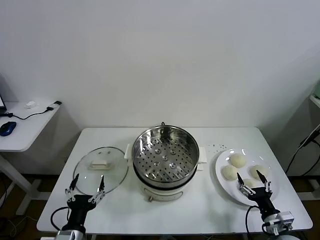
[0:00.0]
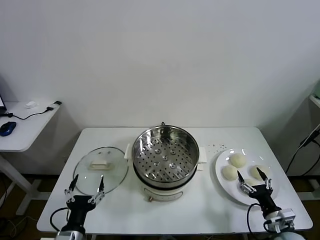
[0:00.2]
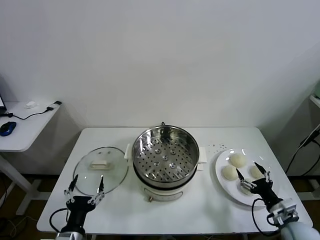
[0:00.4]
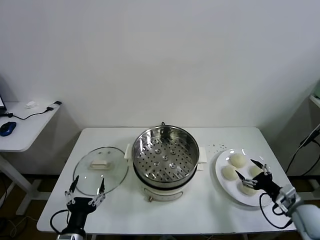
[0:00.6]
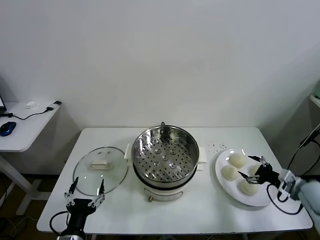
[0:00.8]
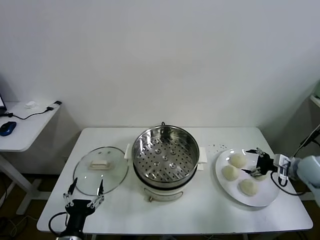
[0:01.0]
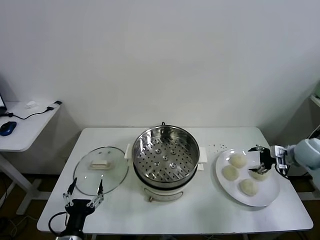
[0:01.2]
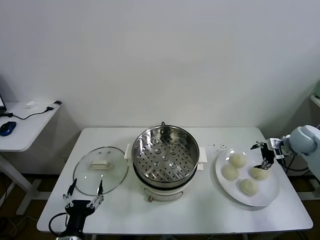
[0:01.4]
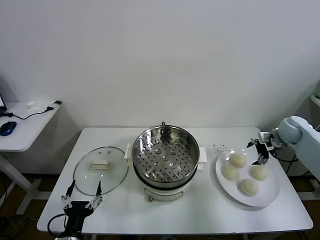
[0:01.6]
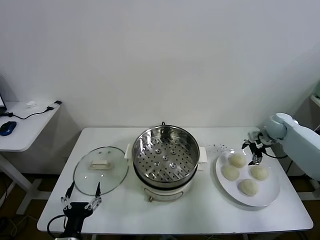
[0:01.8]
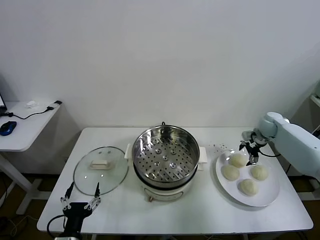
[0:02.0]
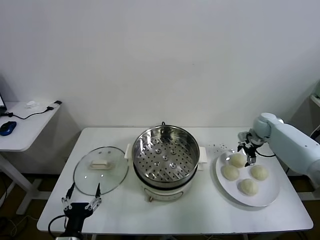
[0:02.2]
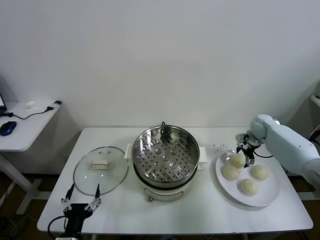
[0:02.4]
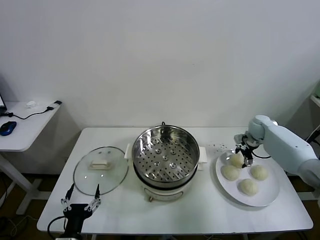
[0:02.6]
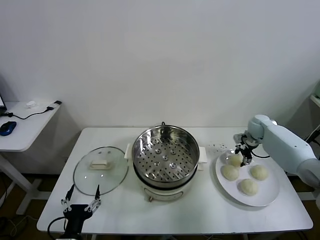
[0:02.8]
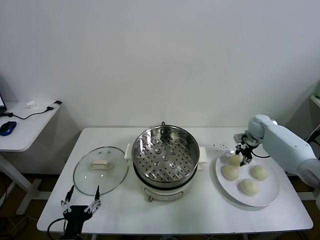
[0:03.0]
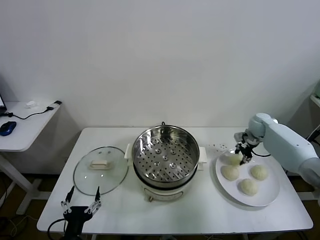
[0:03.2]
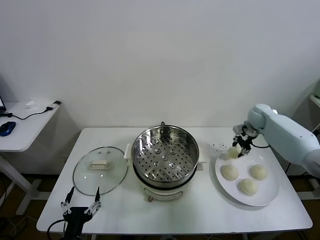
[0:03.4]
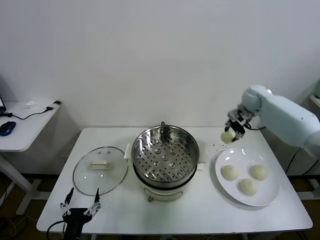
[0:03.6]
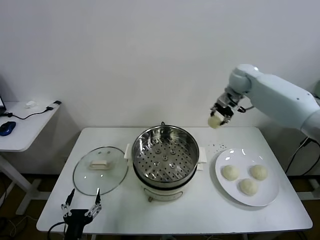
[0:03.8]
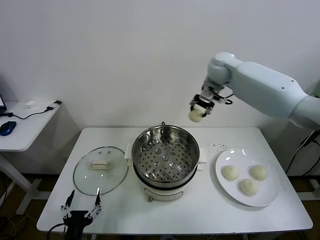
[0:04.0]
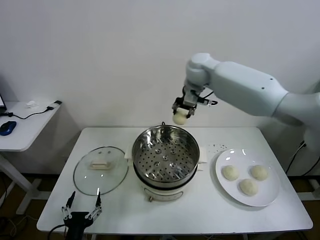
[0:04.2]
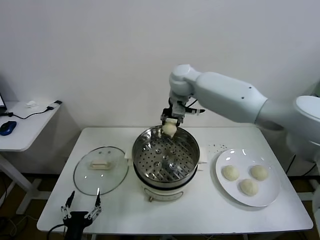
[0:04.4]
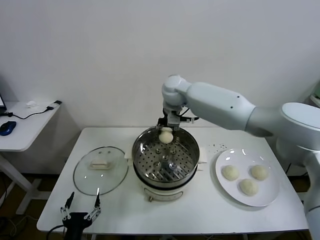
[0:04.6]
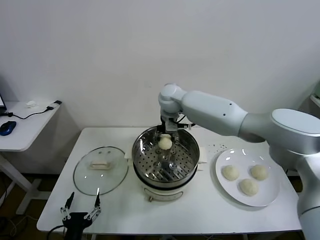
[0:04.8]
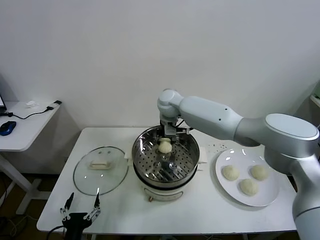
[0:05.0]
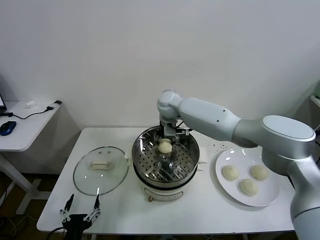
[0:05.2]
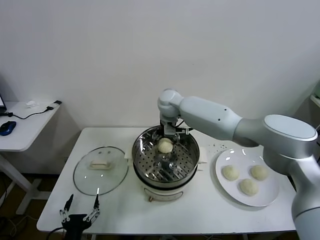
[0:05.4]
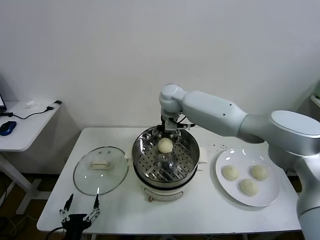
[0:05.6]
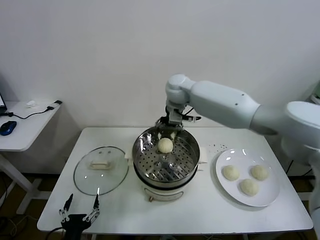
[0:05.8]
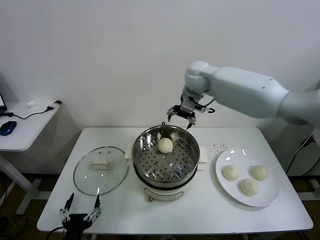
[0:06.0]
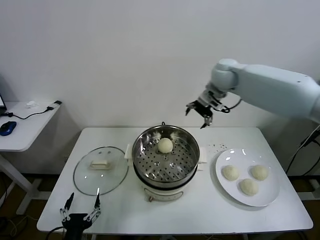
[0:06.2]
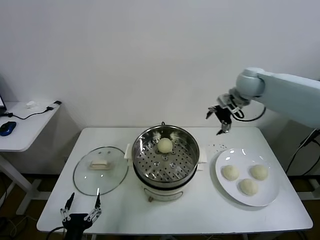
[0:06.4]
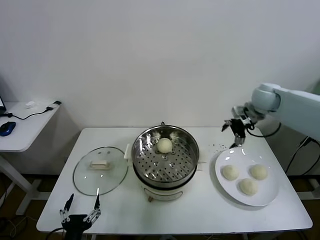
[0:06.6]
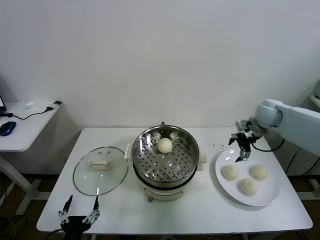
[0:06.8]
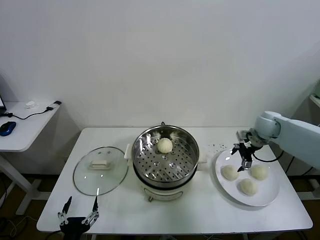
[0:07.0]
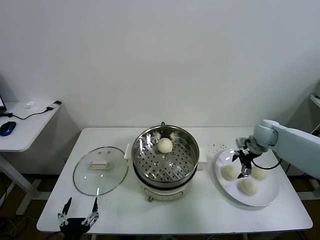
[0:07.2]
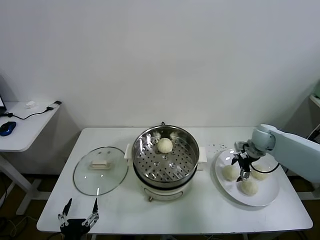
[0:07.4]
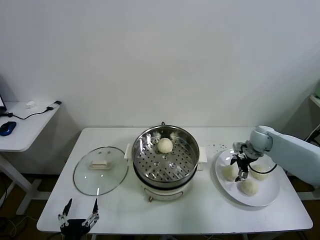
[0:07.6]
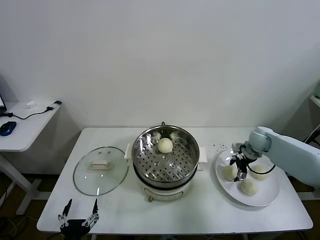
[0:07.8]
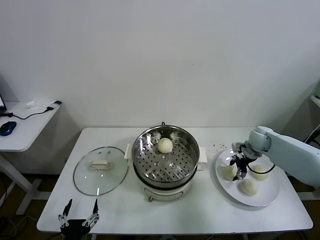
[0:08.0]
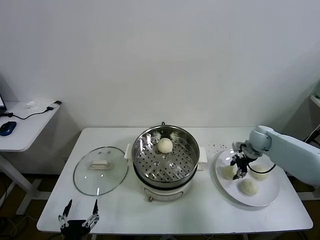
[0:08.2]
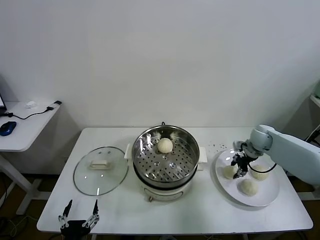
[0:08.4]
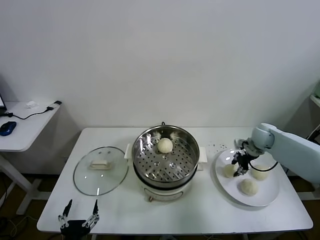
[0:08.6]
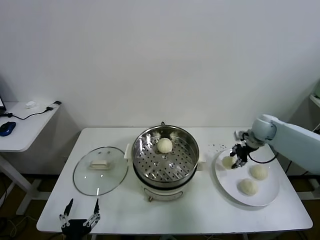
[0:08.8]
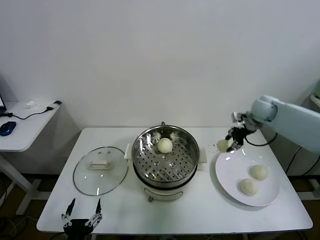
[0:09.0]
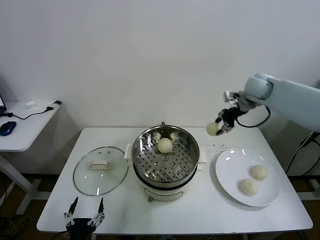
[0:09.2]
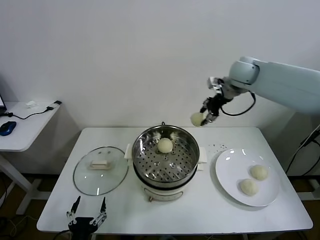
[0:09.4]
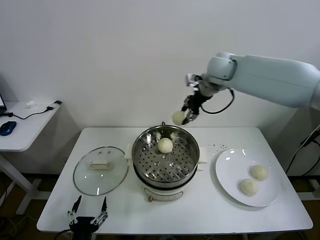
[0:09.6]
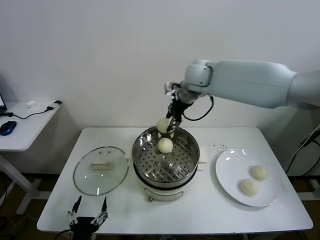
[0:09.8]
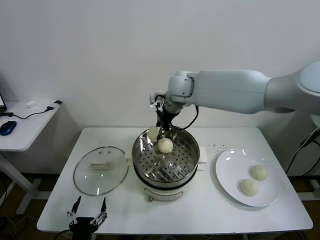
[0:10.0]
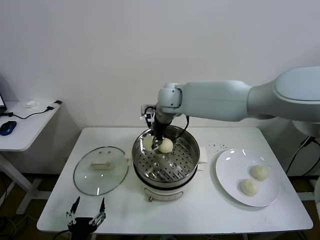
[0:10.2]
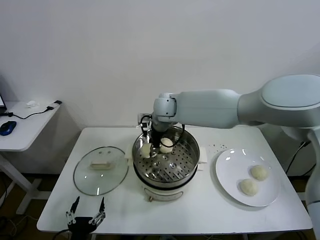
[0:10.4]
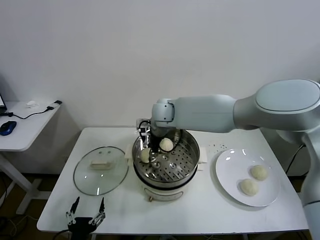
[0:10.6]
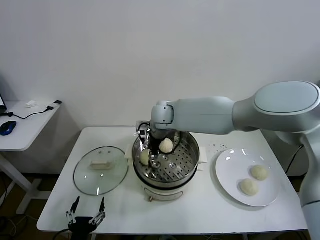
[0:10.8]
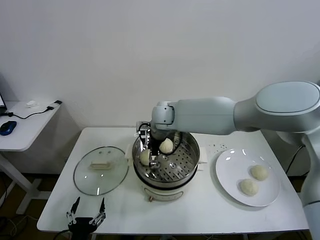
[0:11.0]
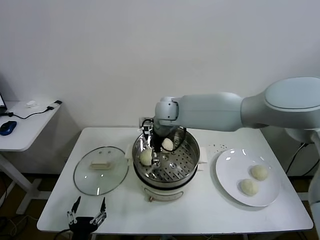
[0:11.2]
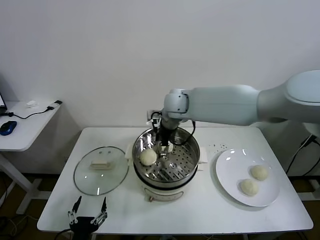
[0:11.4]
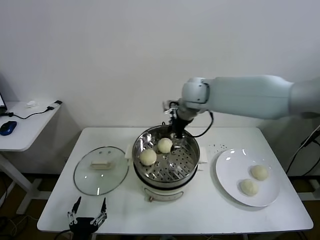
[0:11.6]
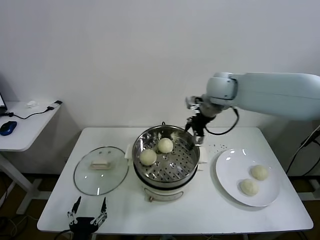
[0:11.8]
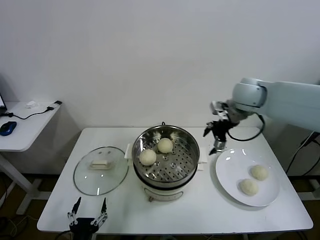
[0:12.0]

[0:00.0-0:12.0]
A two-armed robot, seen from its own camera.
Task of the whole recording: take steamed baozi put them in steamer.
Step, 0.0 to 2.8 s: Grasp the baozi in the plate with right gripper.
Step, 3.0 to 5.4 s: Place the baozi on the steamer with right gripper.
Step, 5.8 to 8.0 s: Grasp the baozi in the plate with right gripper.
Step, 8.2 to 11.0 s: Place the baozi on the steamer with right gripper.
1.6 to 3.0 s: The right gripper goes about 10 cm forward and to the left, and closes.
3.0 to 4.4 s: The right gripper shifts approximately 40 cm to the left and upward.
4.4 to 6.0 s: The right gripper heads to the right, covering approximately 10 cm, and opens up.
6.0 to 7.6 s: The right gripper travels downward and to the right by approximately 35 cm.
7.6 to 9.0 s: The right gripper travels upward by roughly 15 cm, and closes.
9.0 to 10.4 s: The right gripper travels to the left by about 35 cm.
10.4 to 12.0 s: The right gripper is displaced to the right by about 25 cm, and opens up.

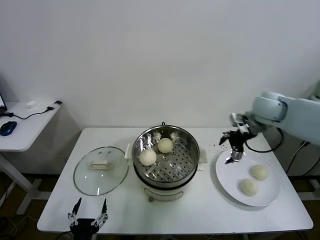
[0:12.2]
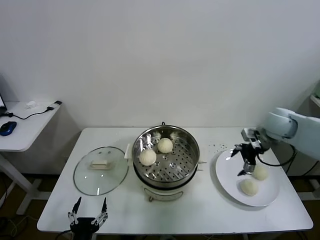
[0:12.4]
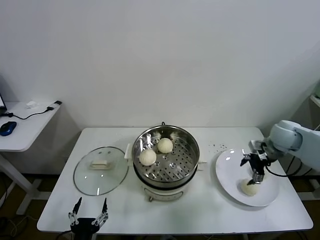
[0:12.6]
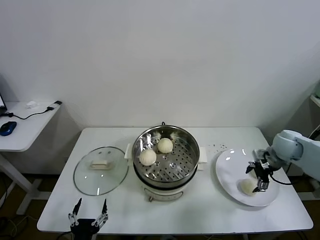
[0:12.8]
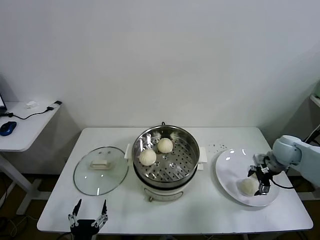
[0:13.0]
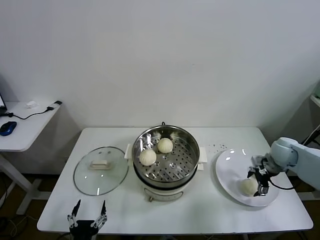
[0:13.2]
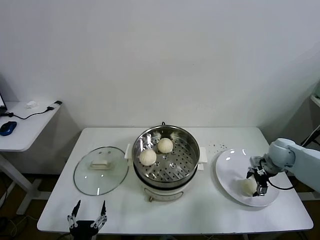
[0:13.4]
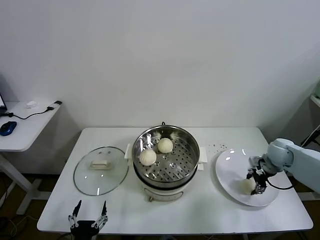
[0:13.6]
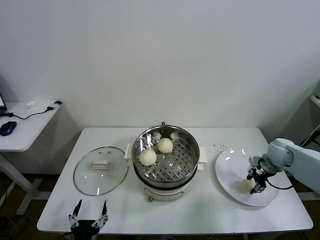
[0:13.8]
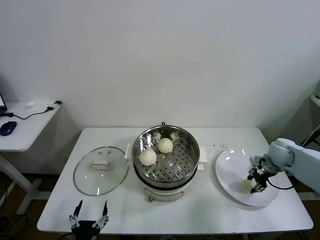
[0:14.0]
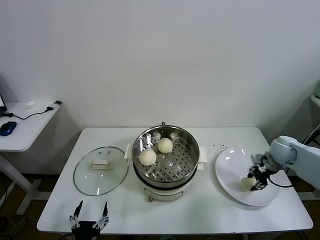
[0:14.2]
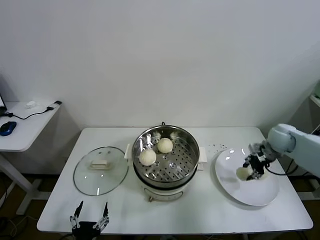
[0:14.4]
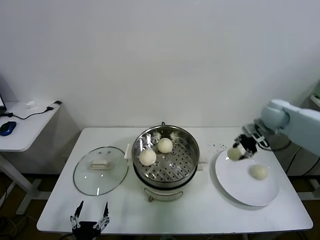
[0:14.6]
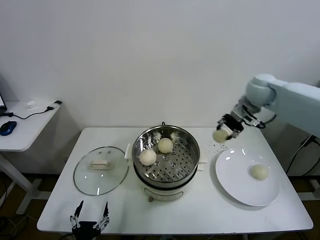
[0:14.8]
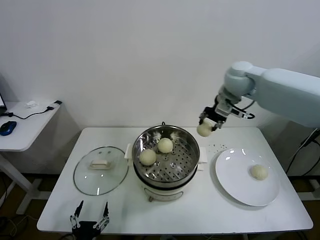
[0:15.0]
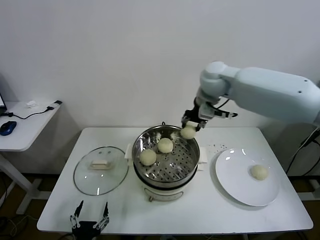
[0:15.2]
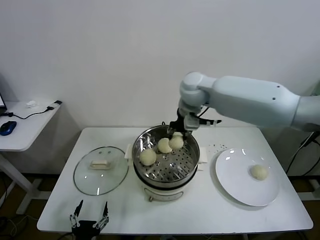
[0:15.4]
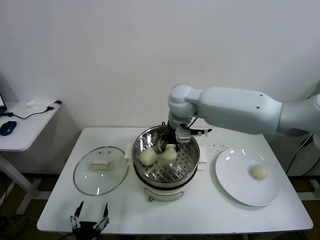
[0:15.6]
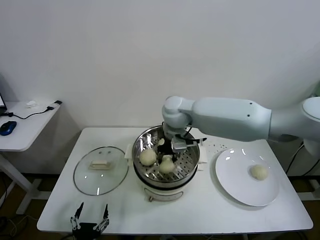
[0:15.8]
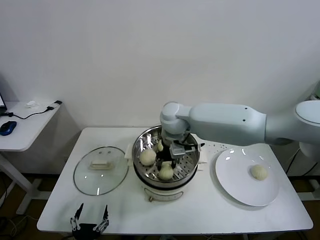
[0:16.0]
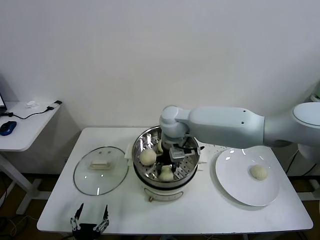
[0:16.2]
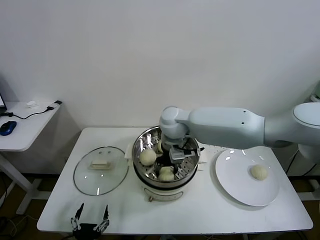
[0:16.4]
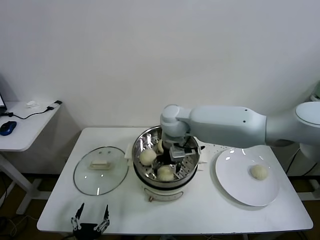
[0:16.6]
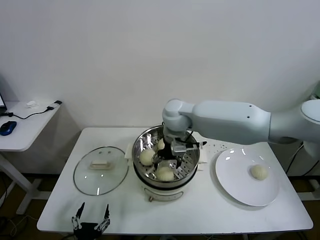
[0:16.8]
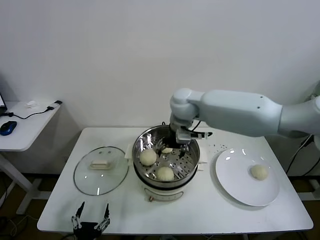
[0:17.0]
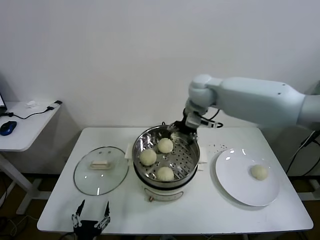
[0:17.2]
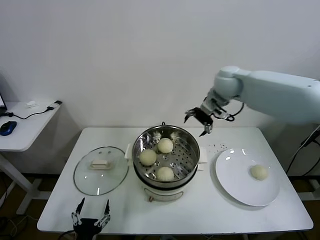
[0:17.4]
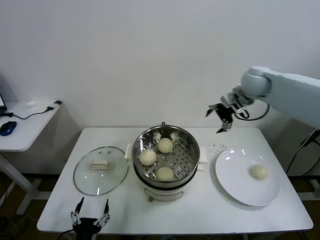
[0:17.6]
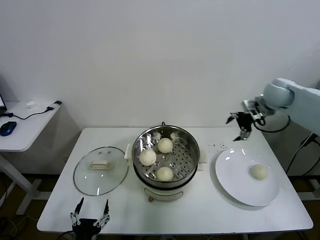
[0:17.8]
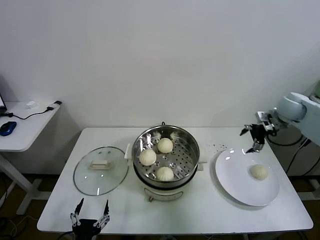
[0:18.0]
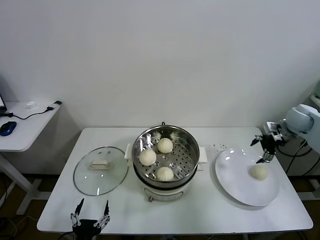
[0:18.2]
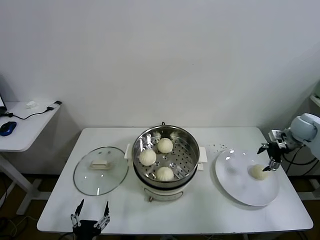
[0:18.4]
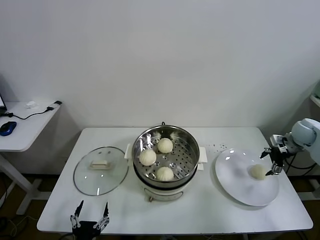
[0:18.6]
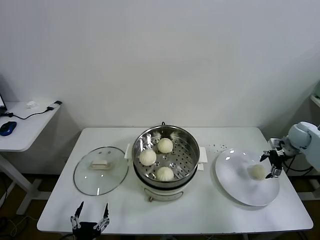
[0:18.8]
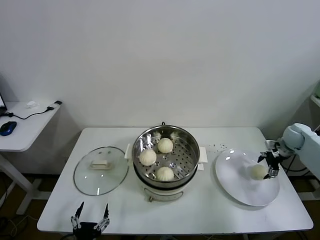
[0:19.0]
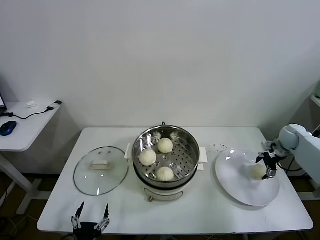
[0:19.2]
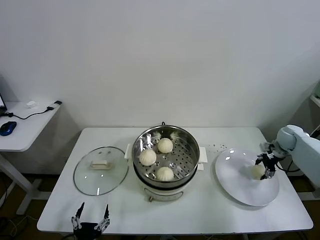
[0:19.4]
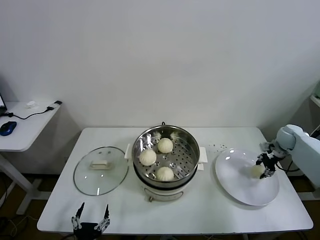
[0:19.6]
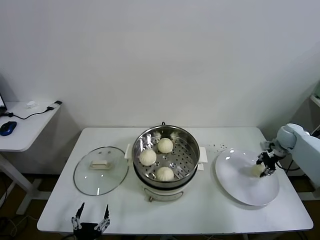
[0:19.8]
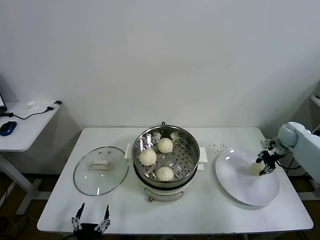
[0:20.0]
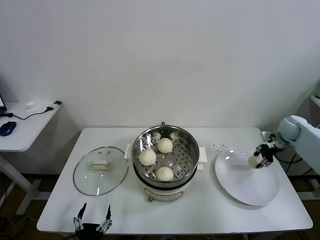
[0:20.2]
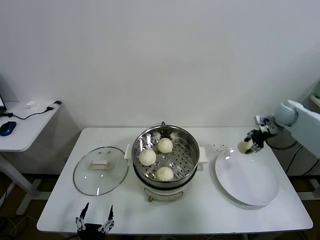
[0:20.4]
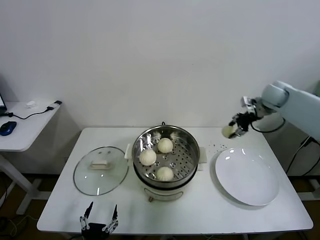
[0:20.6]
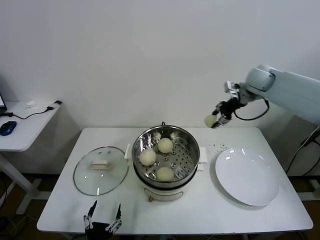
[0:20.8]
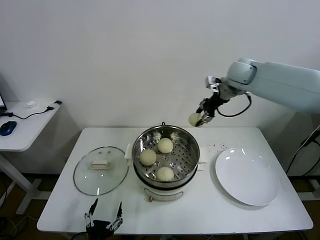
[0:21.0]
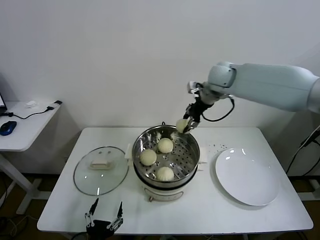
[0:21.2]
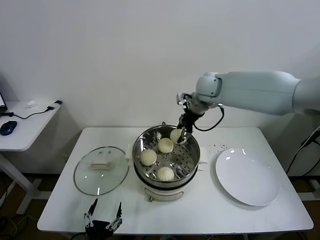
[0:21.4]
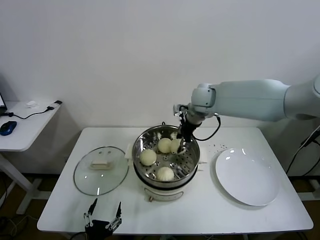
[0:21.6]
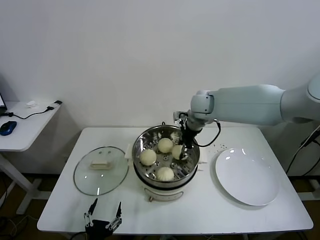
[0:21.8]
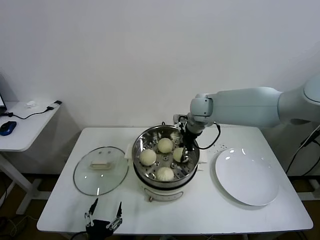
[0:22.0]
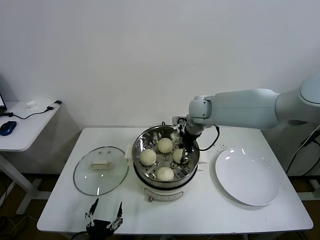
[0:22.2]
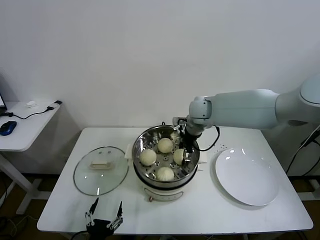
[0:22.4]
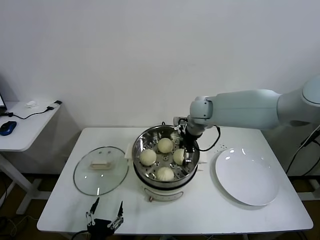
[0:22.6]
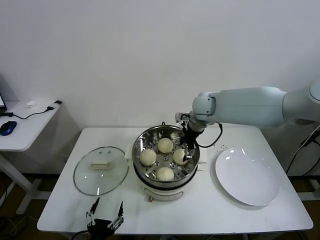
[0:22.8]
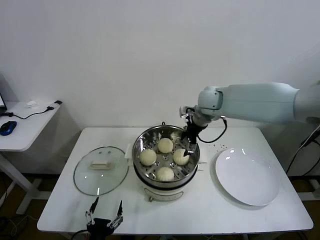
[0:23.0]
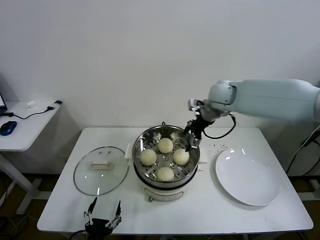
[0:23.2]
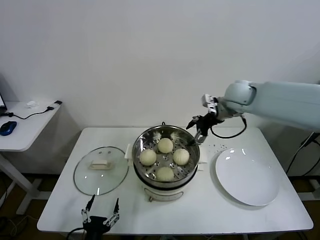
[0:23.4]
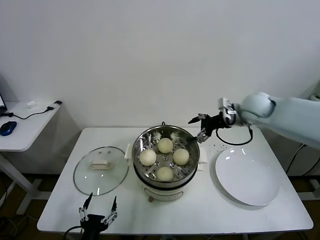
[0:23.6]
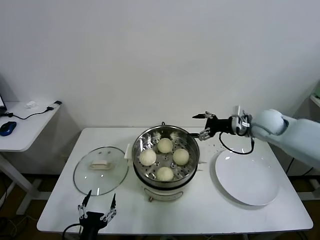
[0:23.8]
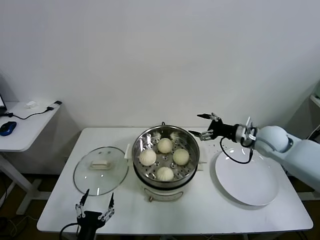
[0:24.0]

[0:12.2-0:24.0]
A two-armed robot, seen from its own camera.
Task of the whole recording: take steamed baozi put them in steamer.
Step, 12.2 to 13.6 s: Grasp the baozi in the plate with right gripper.
Step, 14.0 to 16.6 s: Place the baozi on the steamer with right gripper.
Step, 17.0 to 19.6 s: Grasp the baozi in the plate with right gripper.
Step, 19.8 to 22.6 s: Place the baozi on the steamer with right gripper.
12.2 to 13.6 s: The right gripper shifts roughly 20 cm downward and to the right, and closes its fingers.
13.6 to 15.2 s: The right gripper shifts approximately 40 cm to the left and upward, and closes its fingers.
15.2 to 16.6 s: The right gripper travels downward, to the left and backward by roughly 15 cm, and opens.
16.6 to 18.2 s: The right gripper moves to the right, roughly 40 cm.
18.2 to 19.6 s: The right gripper shifts about 10 cm downward, and closes up.
19.6 to 21.0 s: The right gripper shifts approximately 35 cm to the left and upward.
21.0 to 22.6 s: The right gripper goes about 15 cm to the left and downward, and opens.
22.6 to 24.0 s: The right gripper heads to the right and backward, covering approximately 25 cm.
